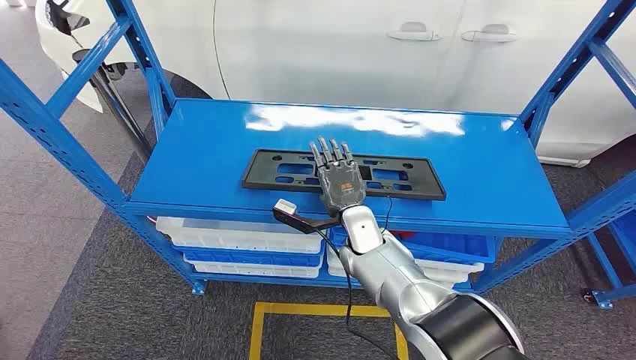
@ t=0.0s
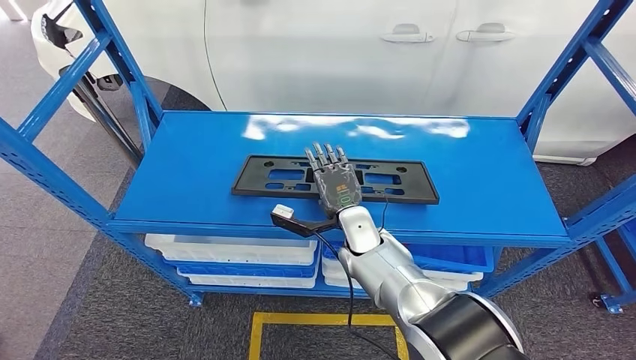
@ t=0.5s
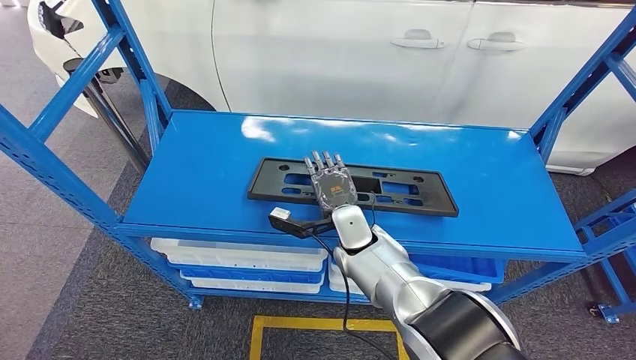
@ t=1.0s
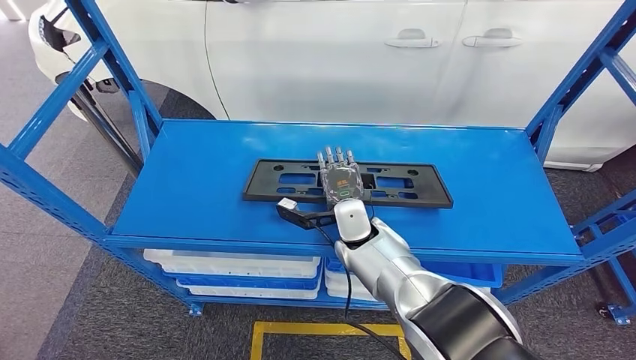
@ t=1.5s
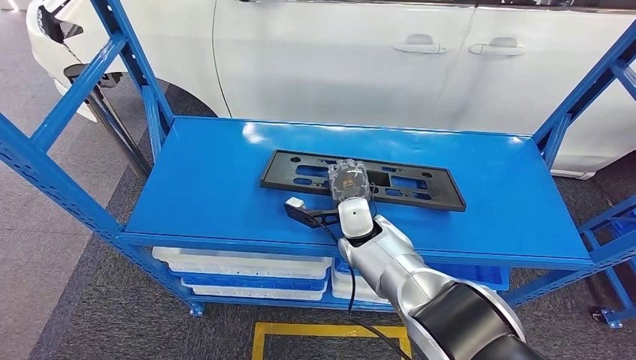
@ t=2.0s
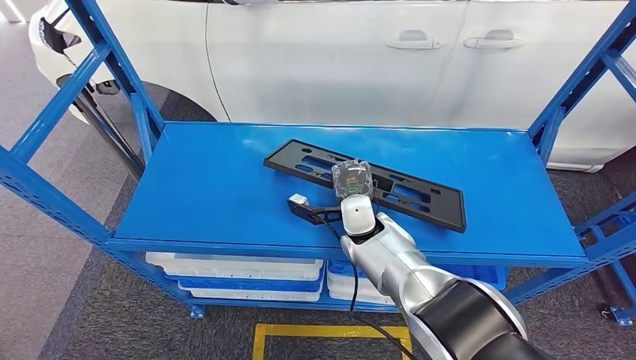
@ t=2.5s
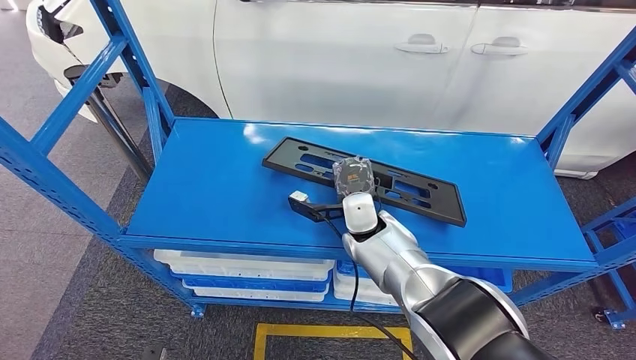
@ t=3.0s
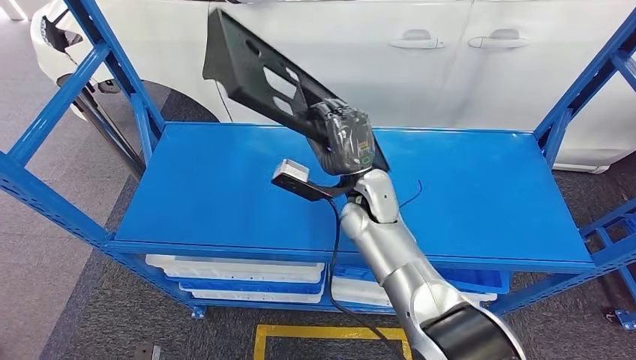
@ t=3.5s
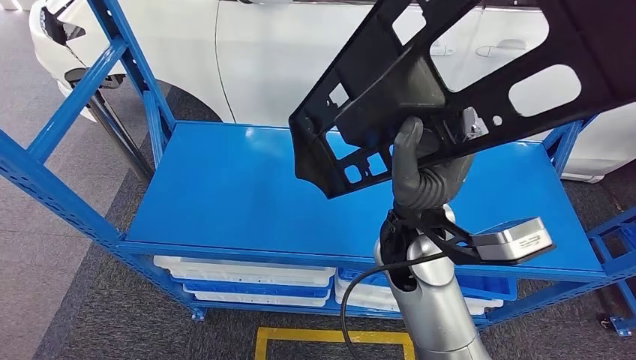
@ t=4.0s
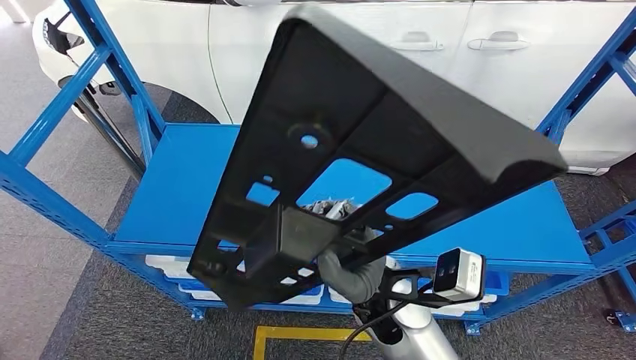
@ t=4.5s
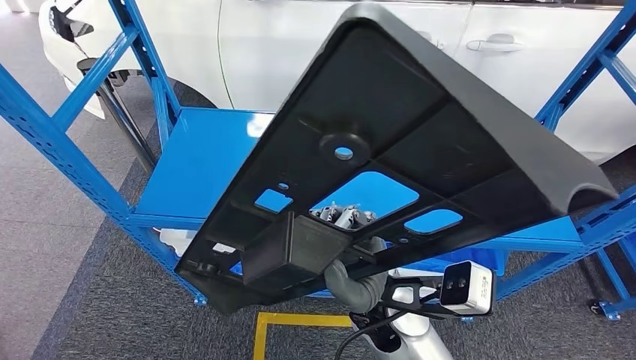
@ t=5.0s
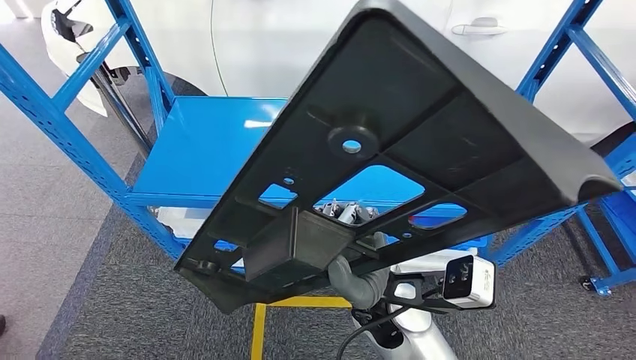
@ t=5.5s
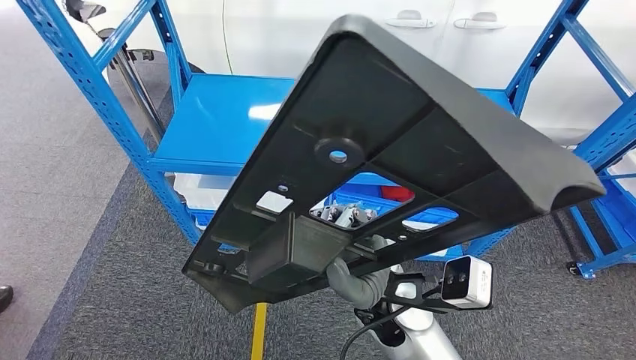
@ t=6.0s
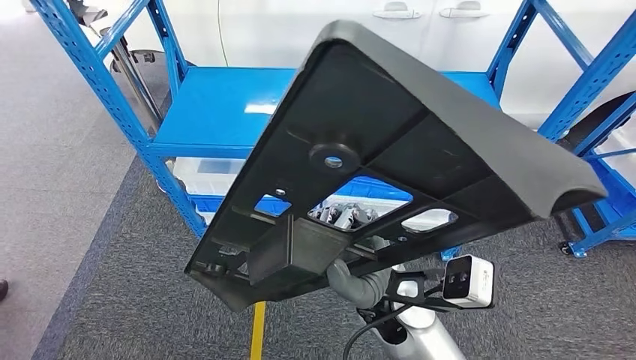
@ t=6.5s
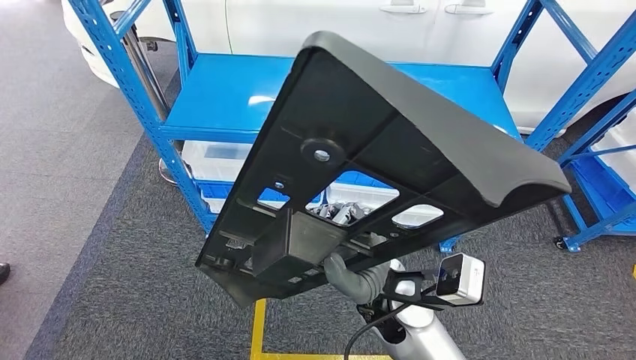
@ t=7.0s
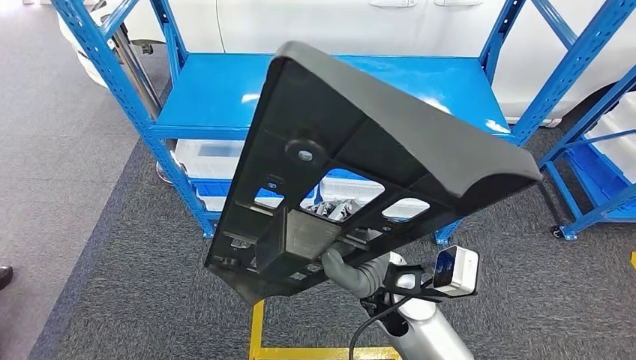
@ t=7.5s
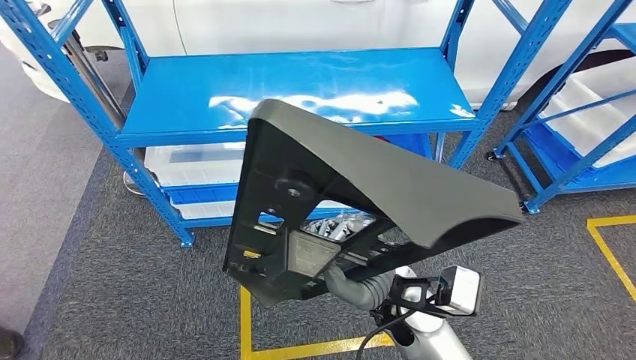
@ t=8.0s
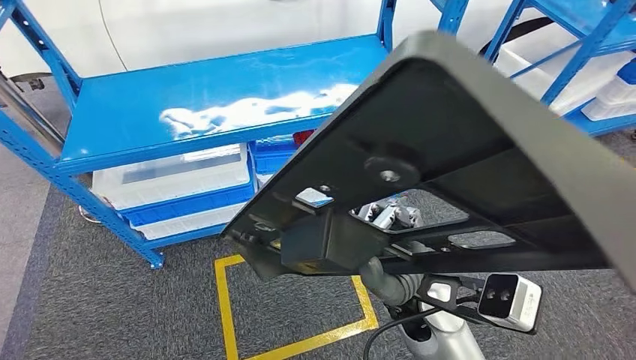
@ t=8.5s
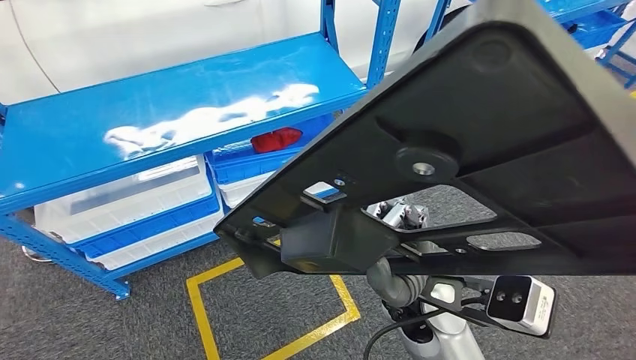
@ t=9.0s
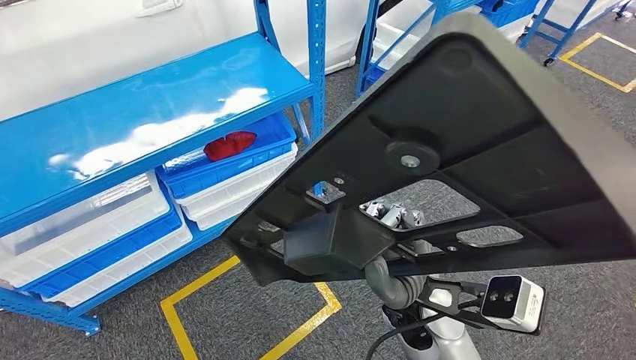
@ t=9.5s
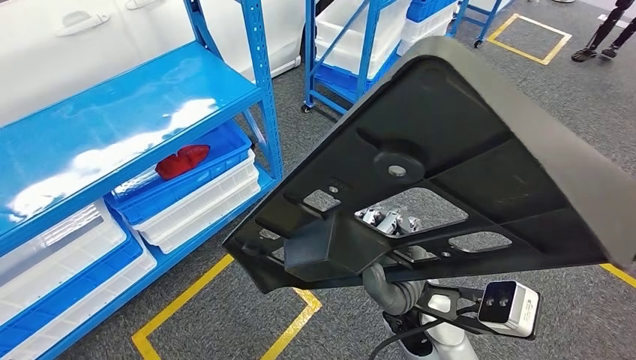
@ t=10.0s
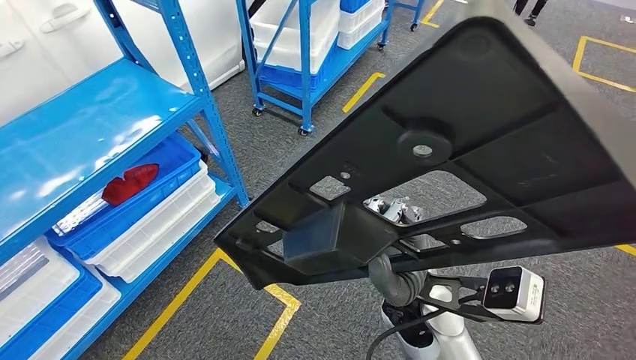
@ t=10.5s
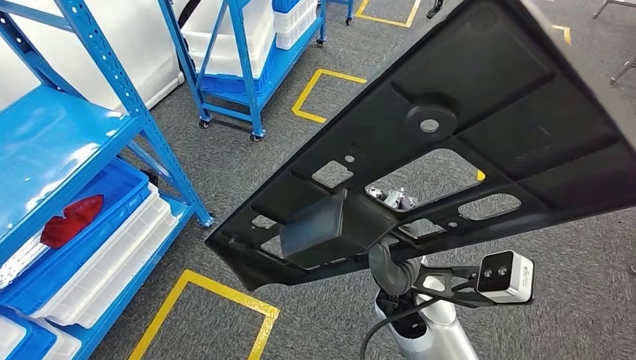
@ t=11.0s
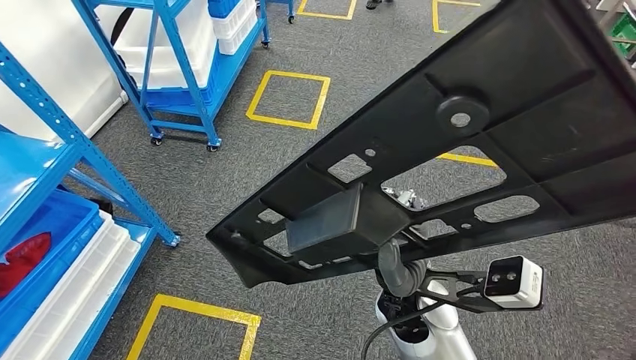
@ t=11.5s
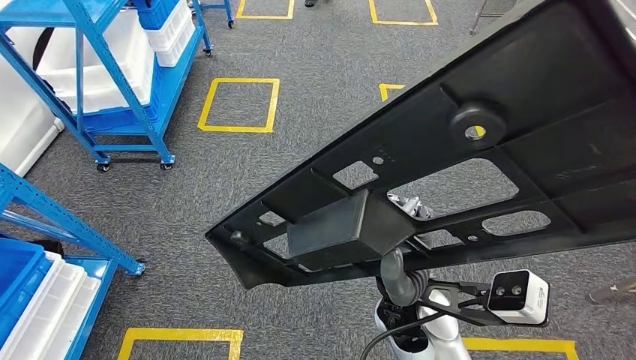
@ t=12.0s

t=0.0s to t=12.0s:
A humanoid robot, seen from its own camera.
Step, t=0.0s to t=5.0s: Pick up the large material from the shelf.

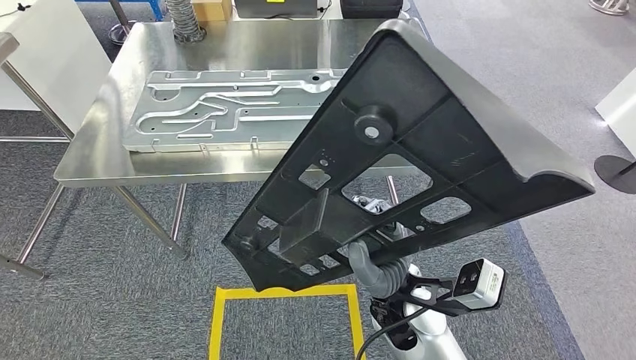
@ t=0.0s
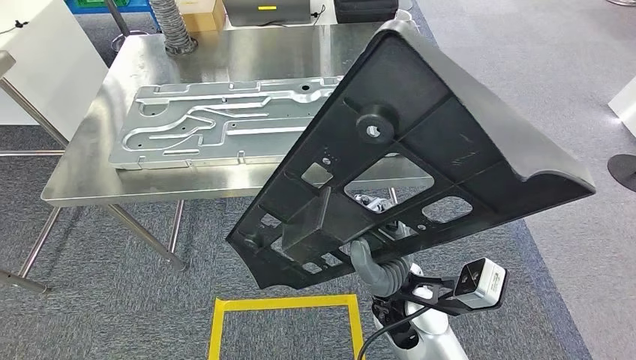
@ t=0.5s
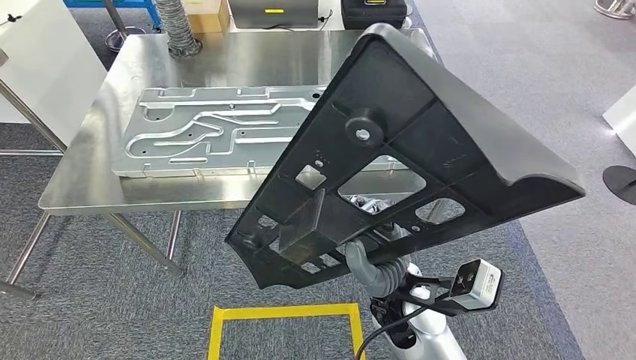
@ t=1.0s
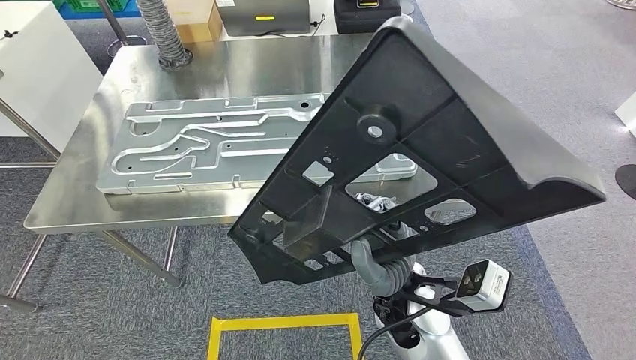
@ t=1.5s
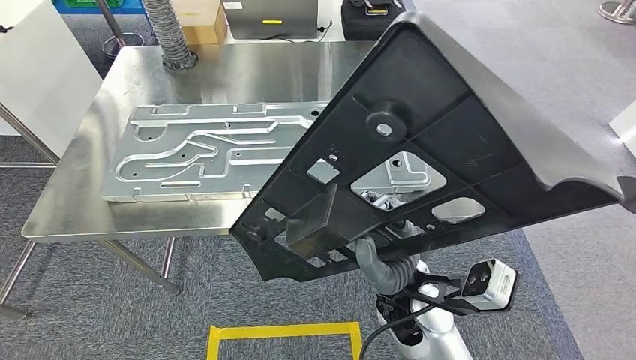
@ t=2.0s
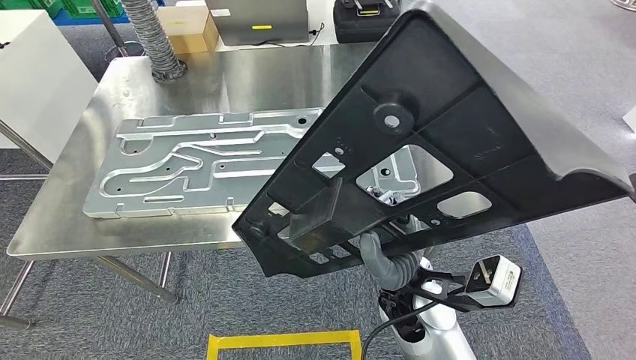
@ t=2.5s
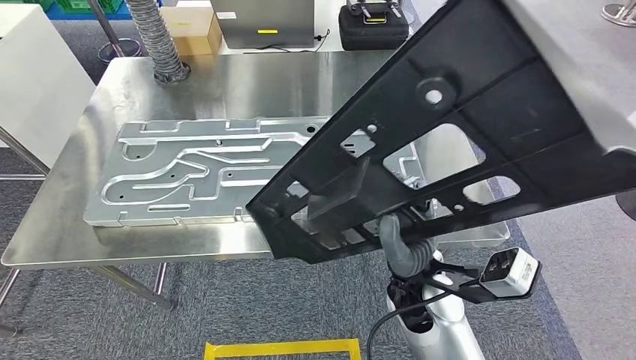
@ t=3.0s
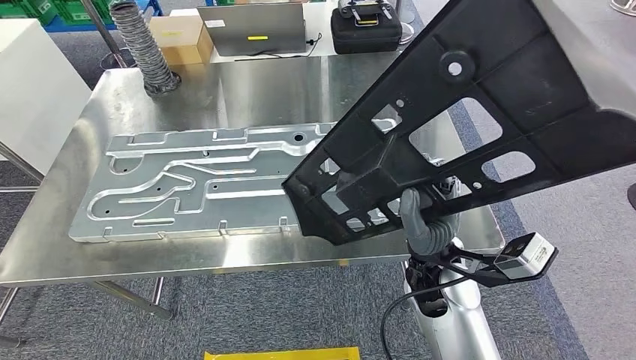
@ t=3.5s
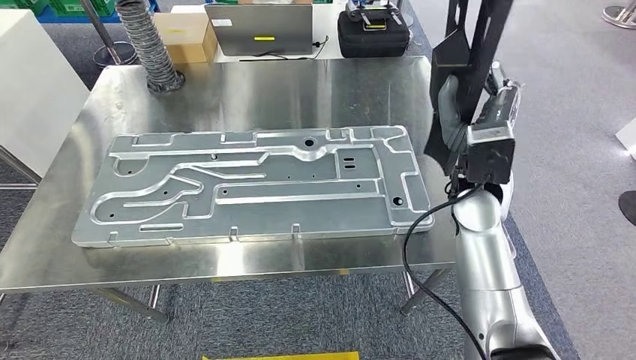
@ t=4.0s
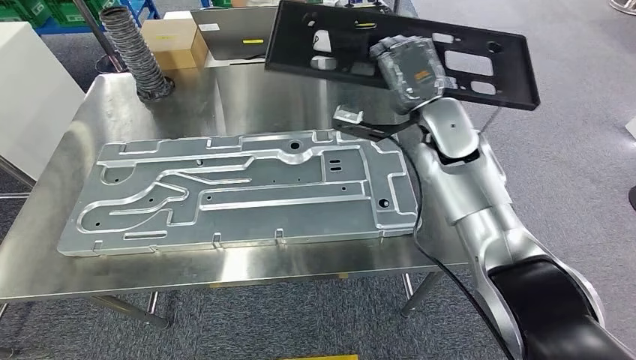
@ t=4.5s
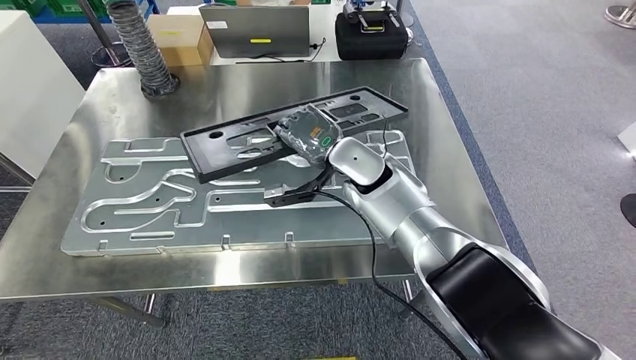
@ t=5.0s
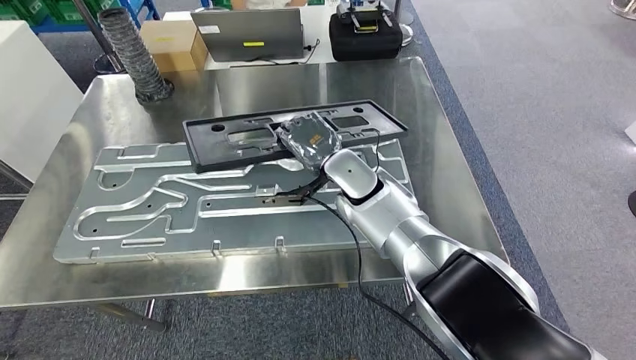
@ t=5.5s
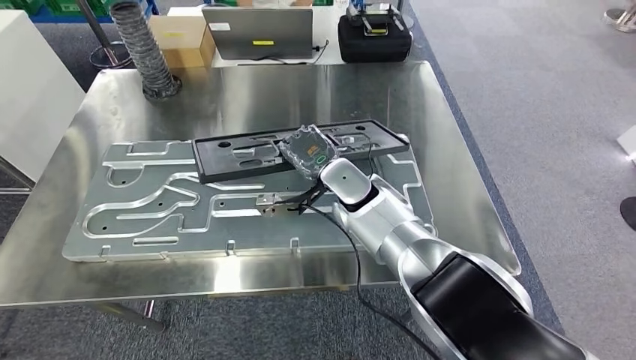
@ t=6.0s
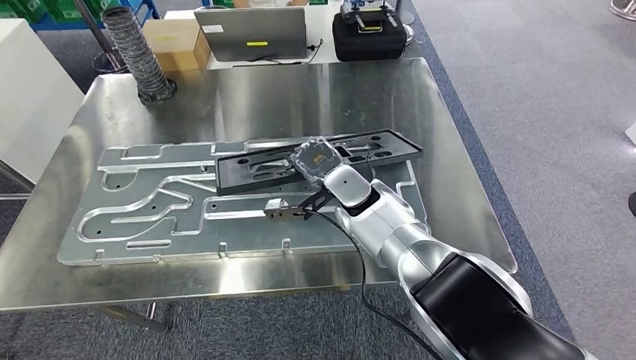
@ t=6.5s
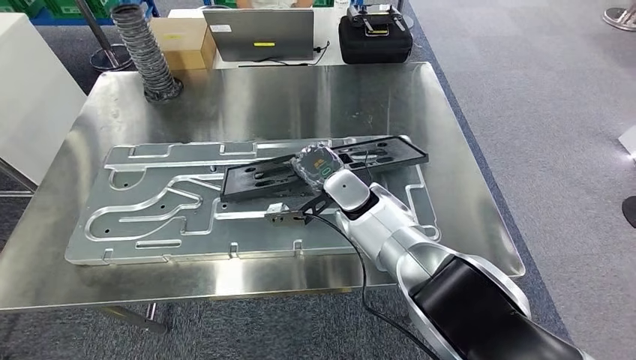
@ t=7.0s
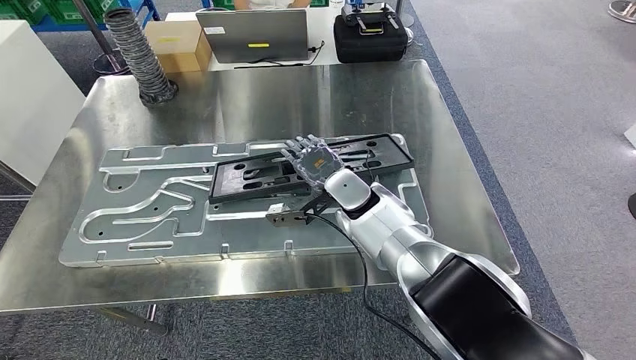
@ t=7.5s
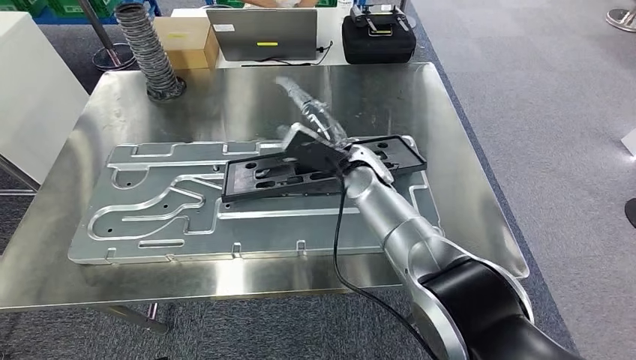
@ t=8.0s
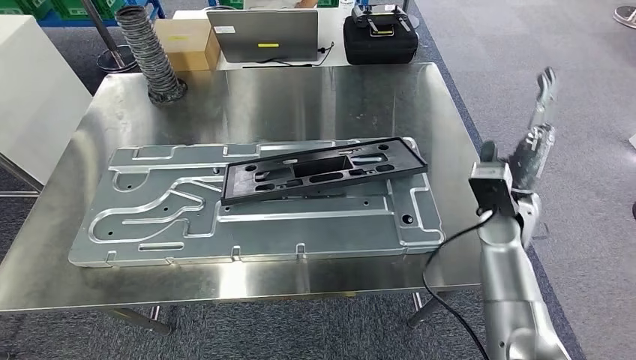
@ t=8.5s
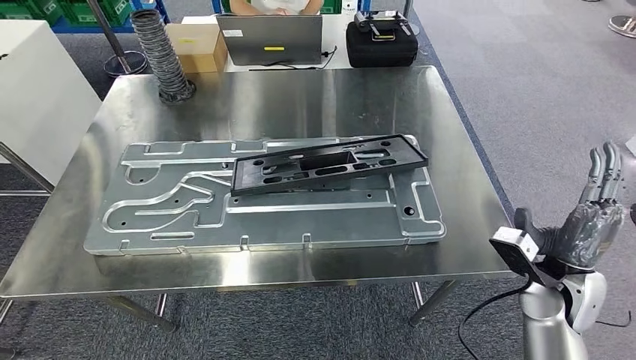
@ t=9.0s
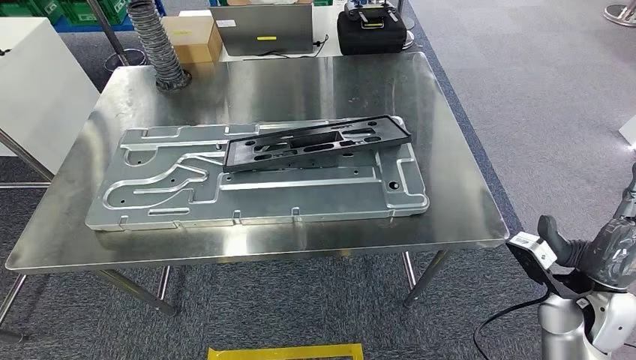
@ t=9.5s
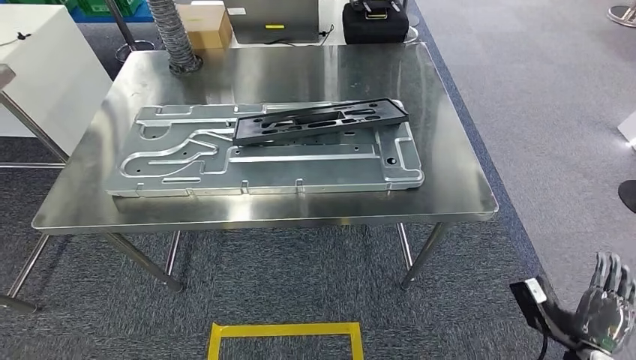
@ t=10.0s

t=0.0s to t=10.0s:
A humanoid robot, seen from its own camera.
Step, t=2.0s to t=8.0s: Insert the large material into the corresponding slot on the workbench.
